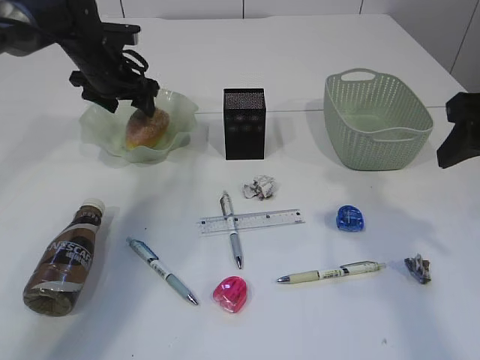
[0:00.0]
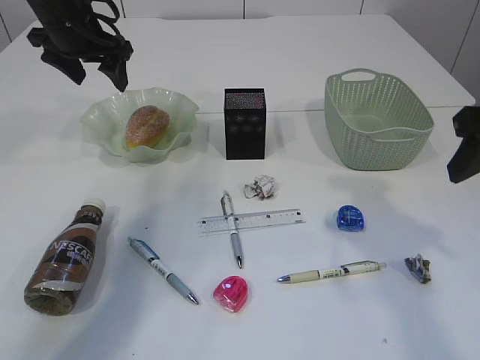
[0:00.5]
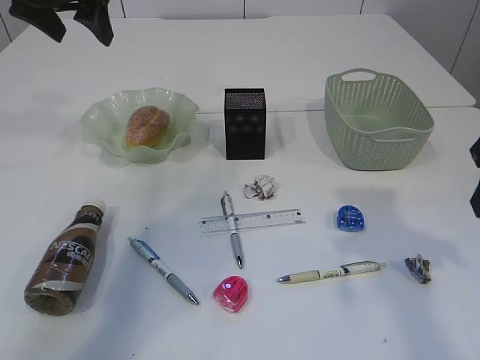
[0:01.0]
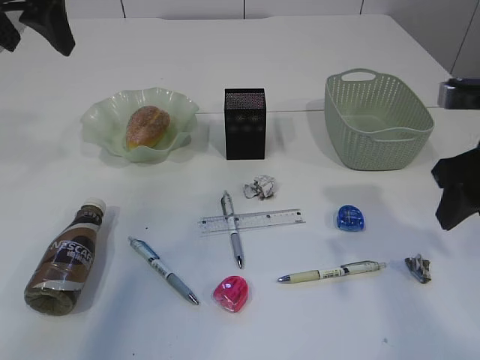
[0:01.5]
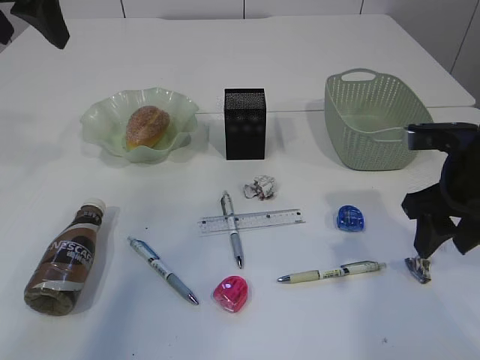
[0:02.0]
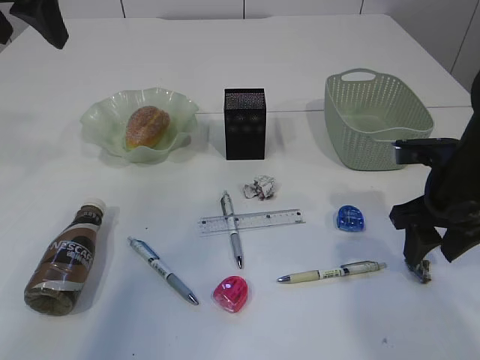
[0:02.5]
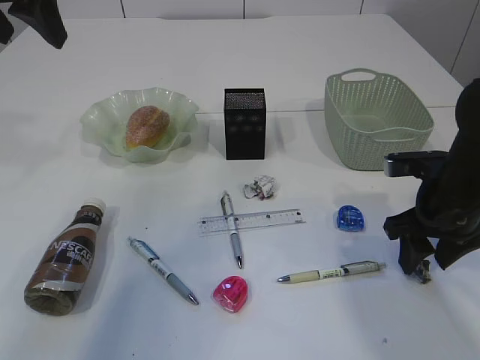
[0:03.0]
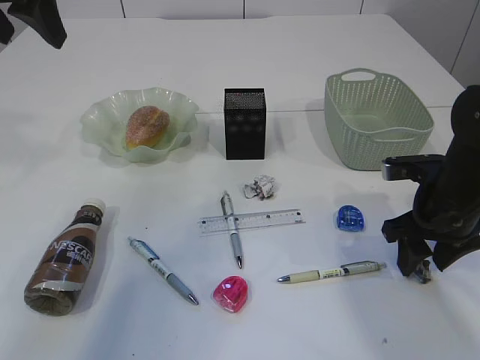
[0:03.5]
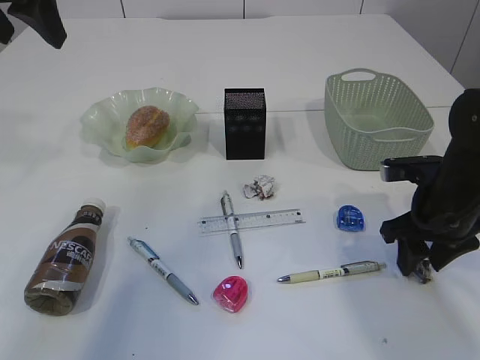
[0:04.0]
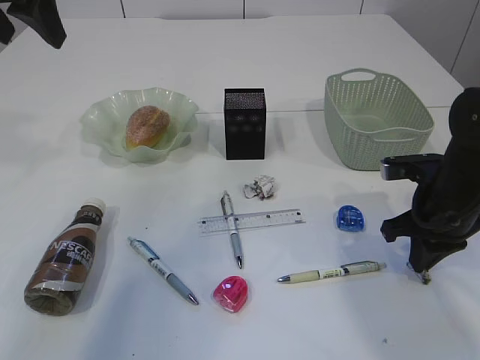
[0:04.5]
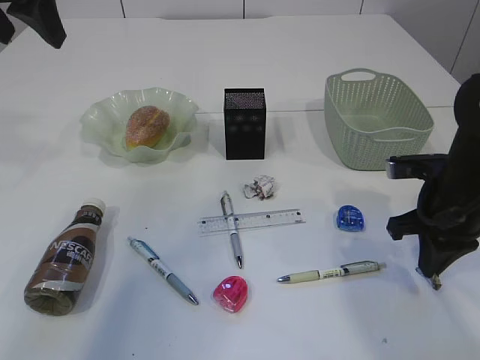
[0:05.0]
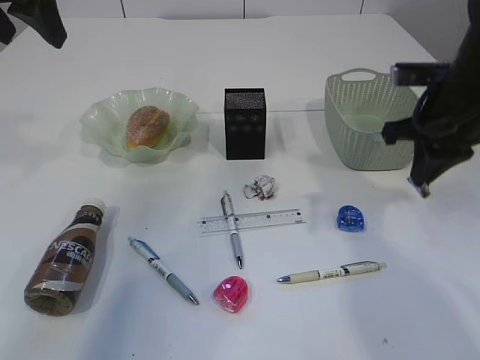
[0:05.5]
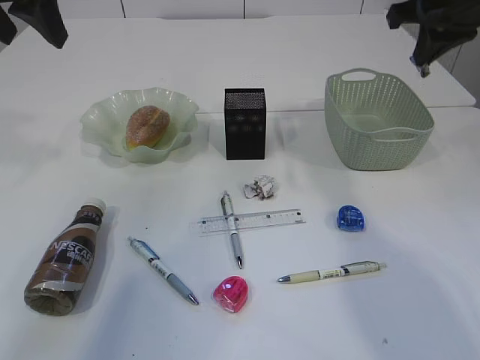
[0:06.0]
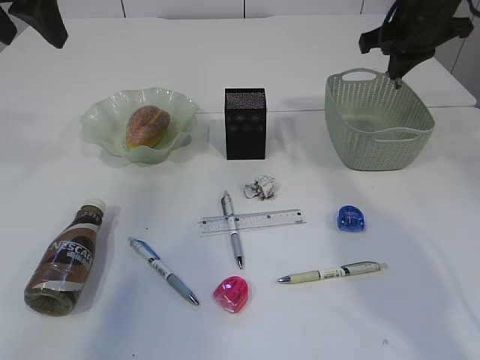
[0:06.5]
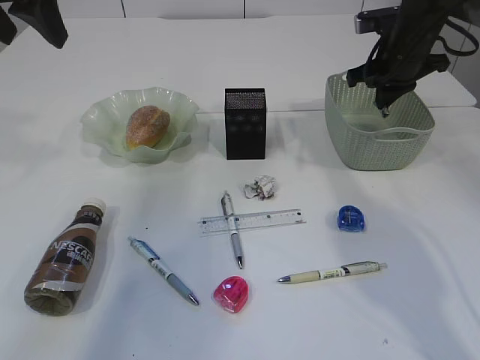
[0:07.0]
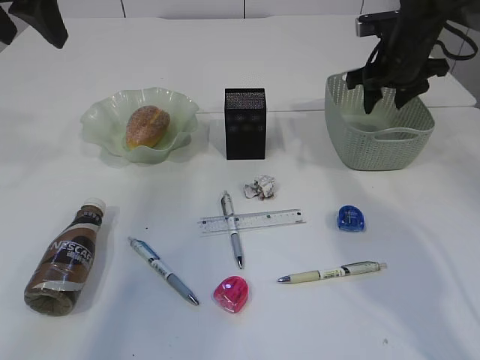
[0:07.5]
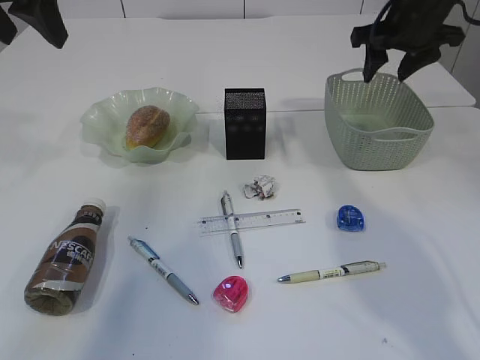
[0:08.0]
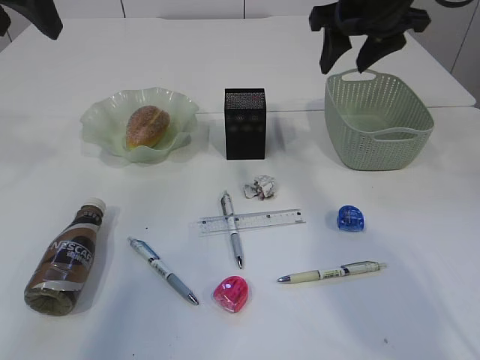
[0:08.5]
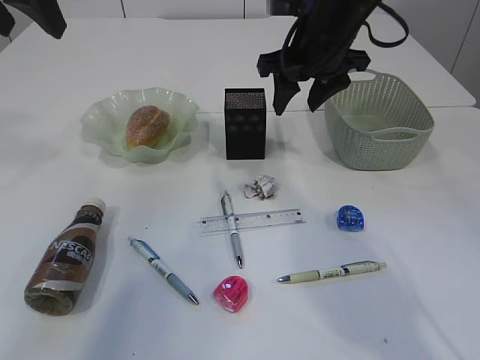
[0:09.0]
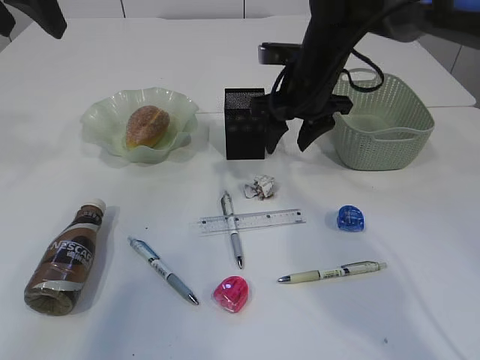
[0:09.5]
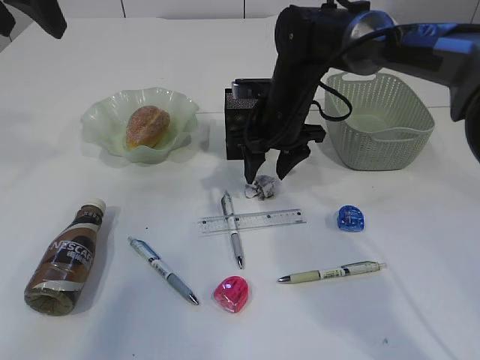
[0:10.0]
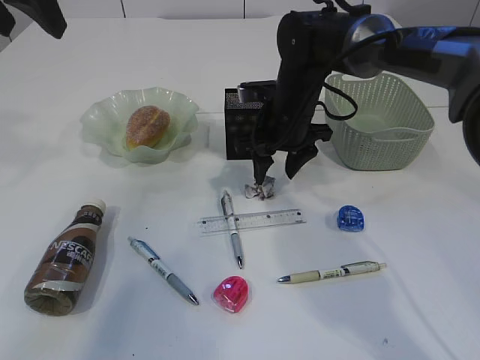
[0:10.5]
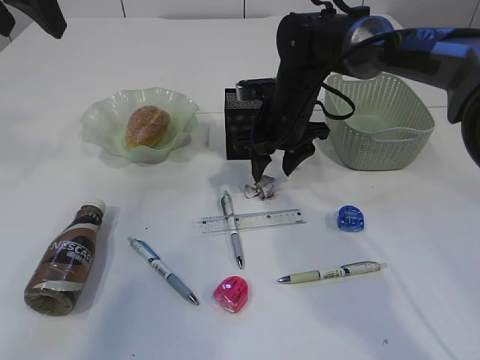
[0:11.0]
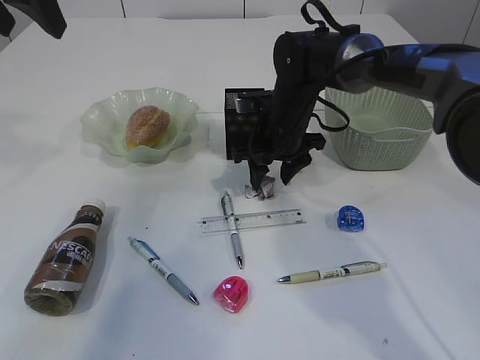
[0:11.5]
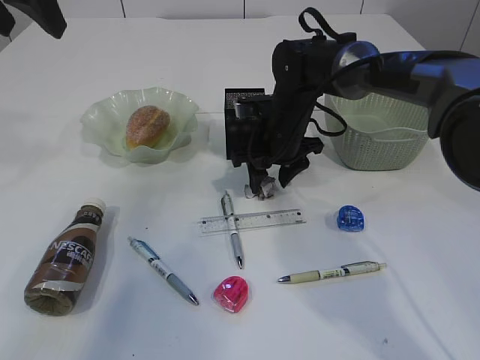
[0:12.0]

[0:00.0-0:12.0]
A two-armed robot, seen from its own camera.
Step, 0:01.0 to 0:05.5: Pick up the waste paper.
Step, 0:06.0 to 0:07.5: Place the waste paper in the basket.
0:00.0 to 0:02.0: The right gripper goes about 10 cm downward. The left gripper is displaced upward and backward by about 25 cm.
0:02.0 to 0:04.0: The right gripper shifts some 5 cm downward.
0:04.0 to 0:06.0: The right gripper is displaced upward and forward by approximately 20 cm, and closes up.
0:06.0 to 0:08.0: The right gripper moves forward and downward, approximately 10 cm, and opens up.
0:08.0 to 0:10.0: The right gripper moves to the left and downward, roughly 20 cm.
0:10.0 to 0:12.0: The grippers make only small movements.

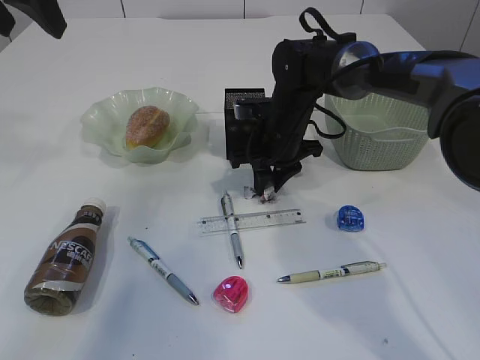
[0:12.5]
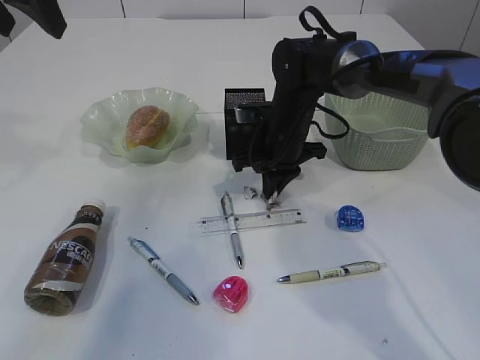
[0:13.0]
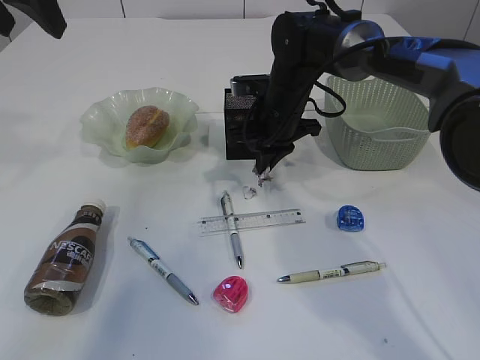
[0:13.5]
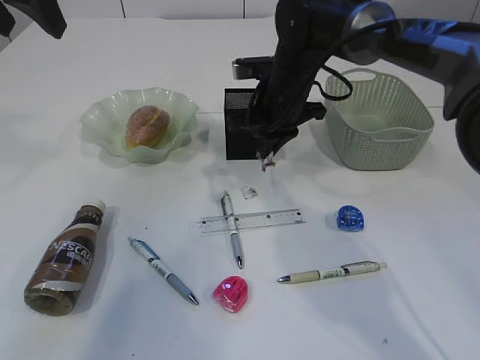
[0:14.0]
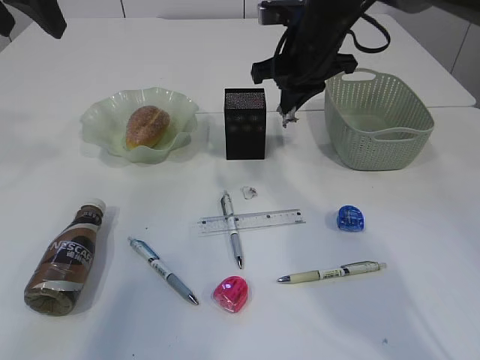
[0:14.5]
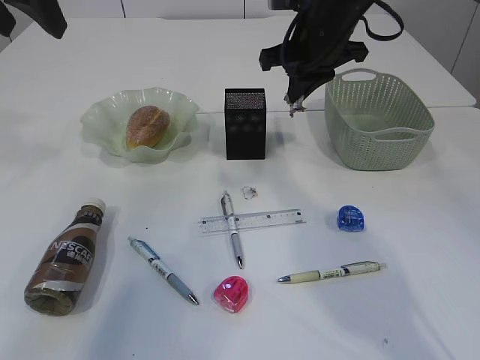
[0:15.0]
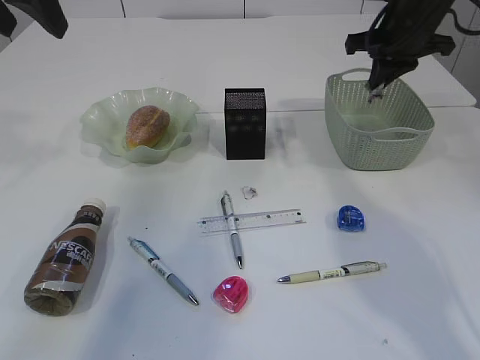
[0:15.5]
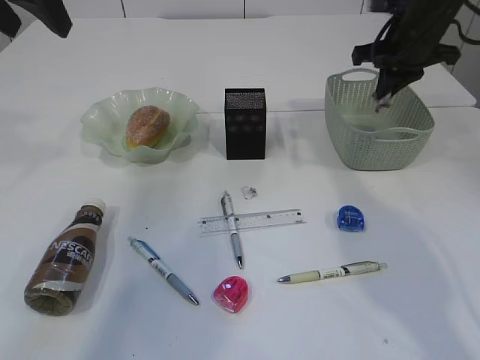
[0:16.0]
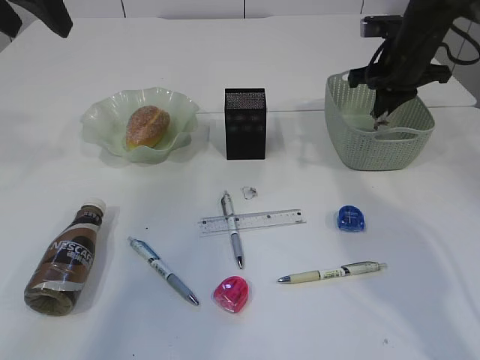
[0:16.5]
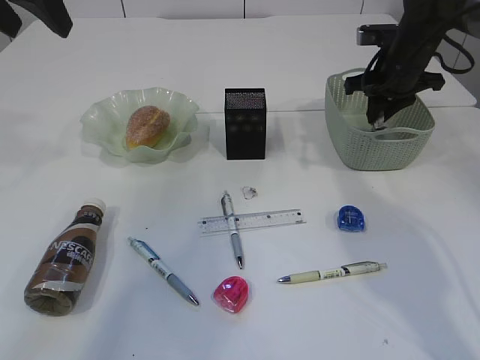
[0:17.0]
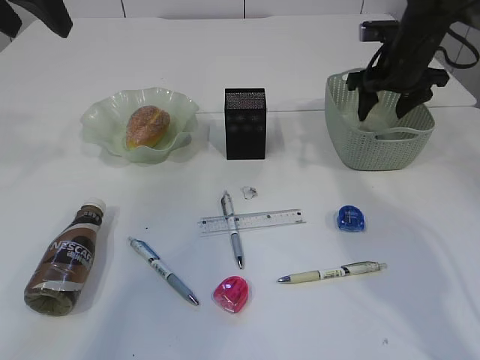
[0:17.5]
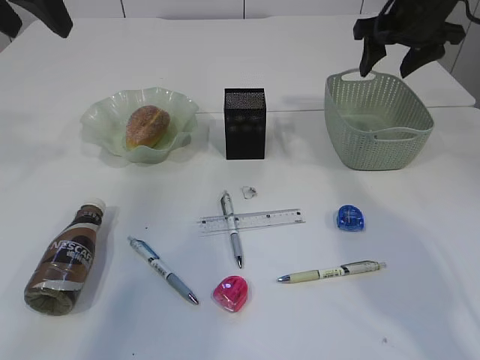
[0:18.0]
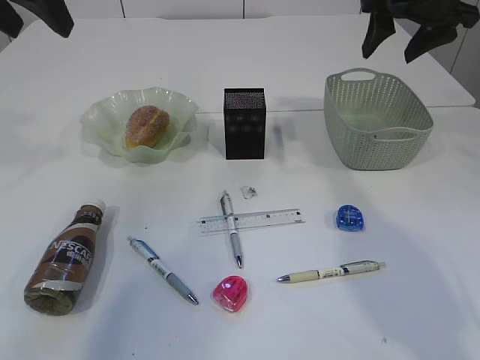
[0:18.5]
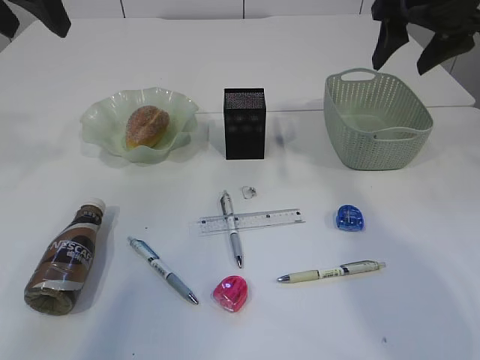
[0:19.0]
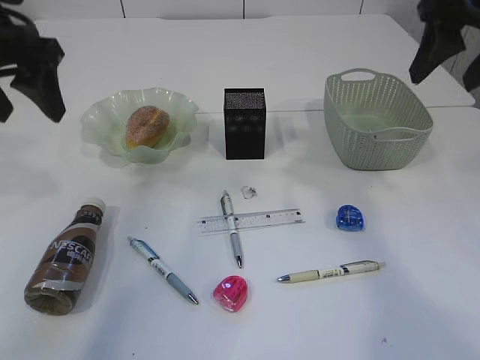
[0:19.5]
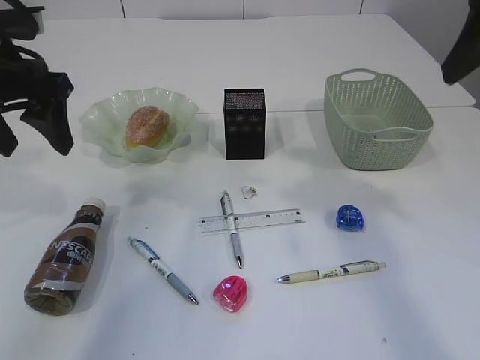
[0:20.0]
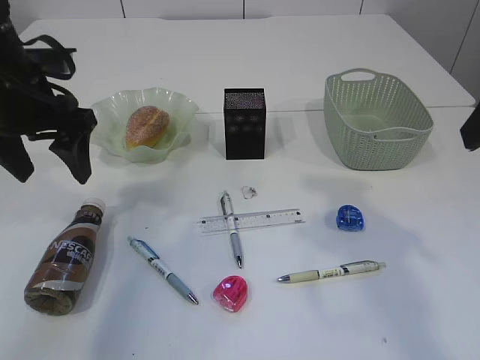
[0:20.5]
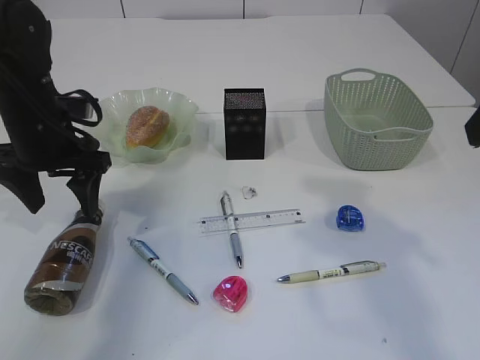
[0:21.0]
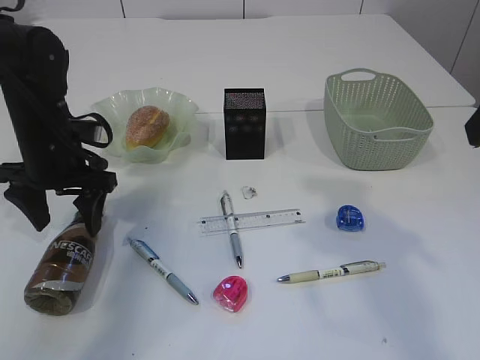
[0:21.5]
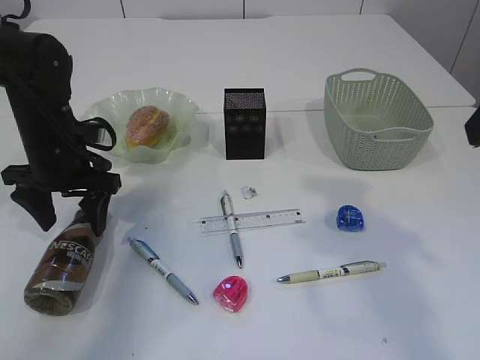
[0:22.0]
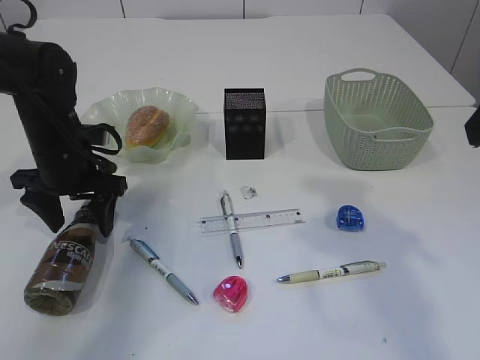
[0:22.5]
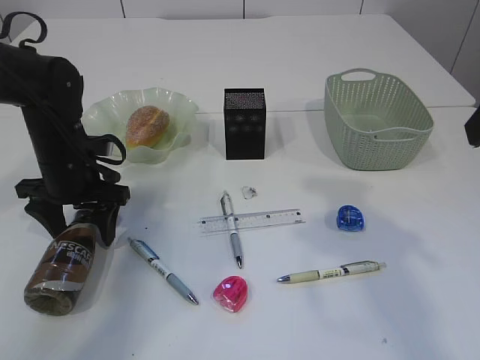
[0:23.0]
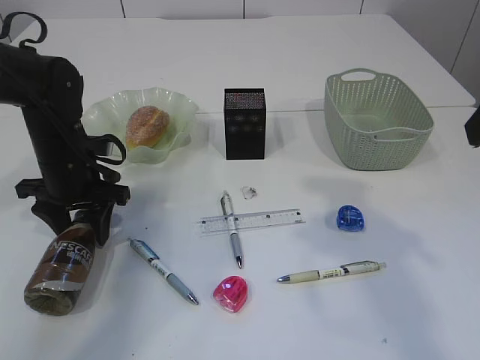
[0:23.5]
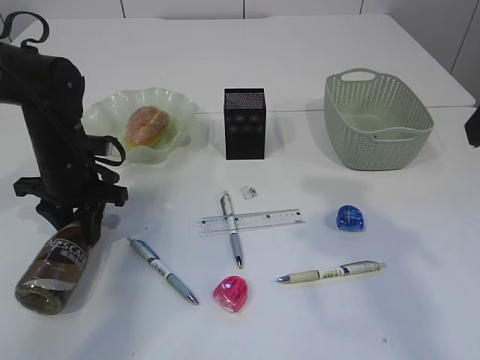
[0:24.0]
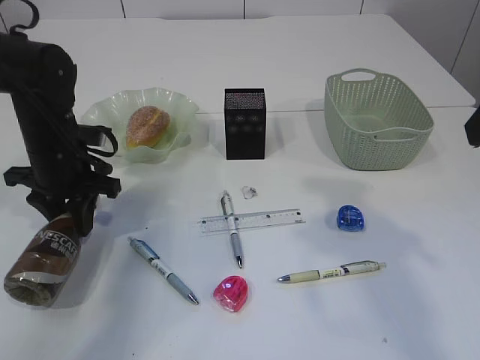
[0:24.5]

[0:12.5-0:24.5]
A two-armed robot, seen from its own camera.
Step, 0:12.5 to 0:15.0: Pick up the waste paper.
Step, 0:15.5 to 0:18.5: Place the waste paper in the basket.
0:12.5 to 0:14.5: The right gripper moves upward, roughly 10 cm, and closes up.
0:14.5 to 0:16.5: The right gripper travels to the right by about 15 cm.
0:16.5 to 0:18.5: The right gripper is displaced upward by approximately 10 cm, and opens its fingers.
0:18.5 to 0:20.5: The right gripper shifts approximately 25 cm backward. Meanwhile the left gripper shifts approximately 15 cm downward.
0:20.5 to 0:22.5: The left gripper moves downward, roughly 10 cm.
0:22.5 to 0:24.5: The left gripper closes its fingers.

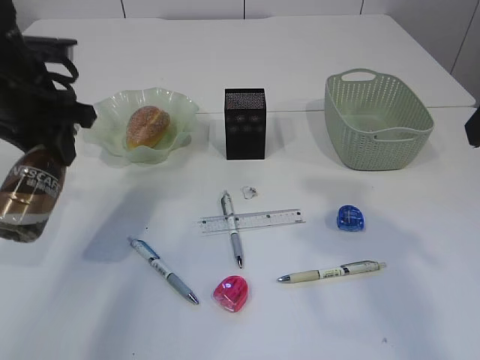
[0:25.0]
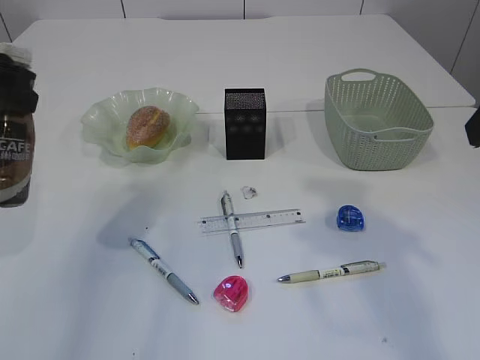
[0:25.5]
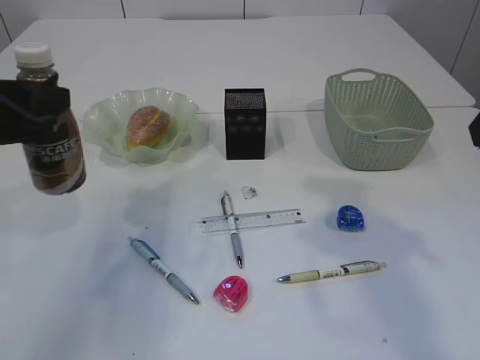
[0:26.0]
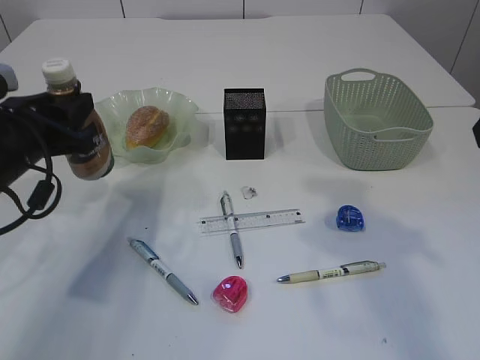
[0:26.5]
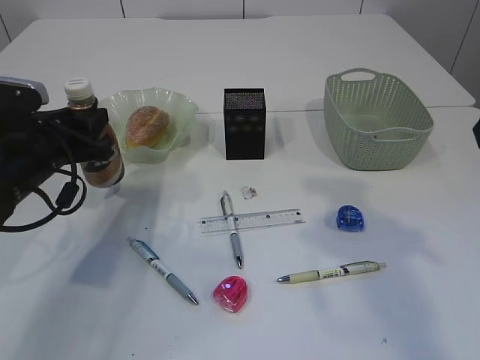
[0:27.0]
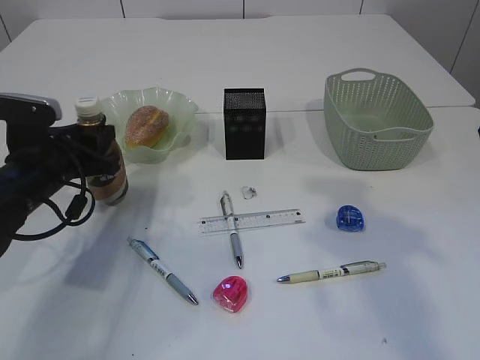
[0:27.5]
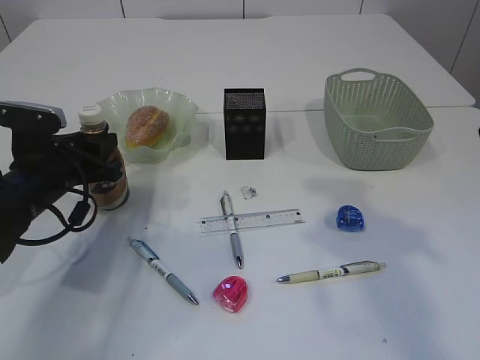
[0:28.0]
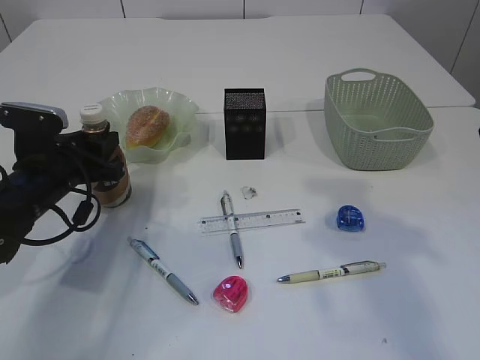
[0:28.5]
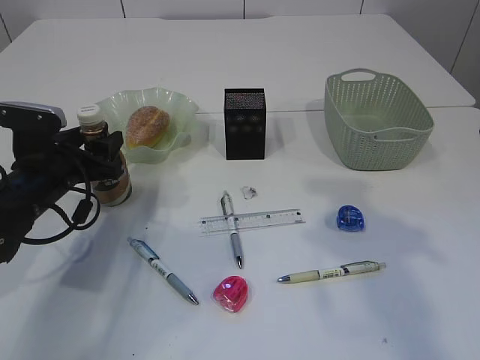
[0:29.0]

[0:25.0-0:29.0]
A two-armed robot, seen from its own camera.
0:25.0 to 0:27.0: The left gripper shifts some 10 cm downward.
0:27.0 to 0:29.0: The left gripper opens up.
